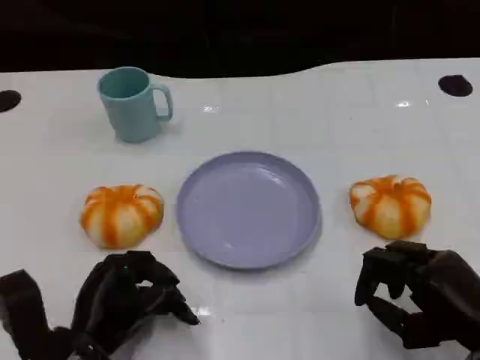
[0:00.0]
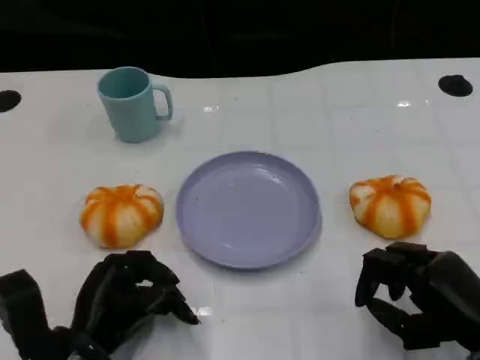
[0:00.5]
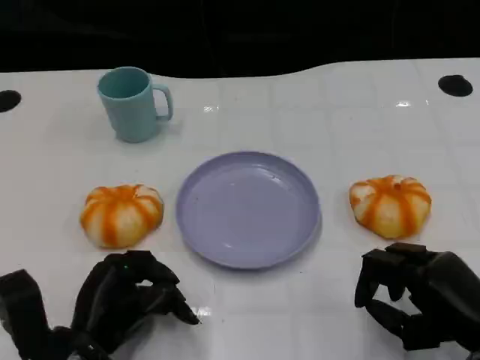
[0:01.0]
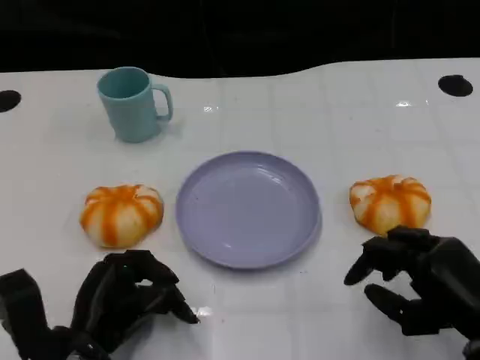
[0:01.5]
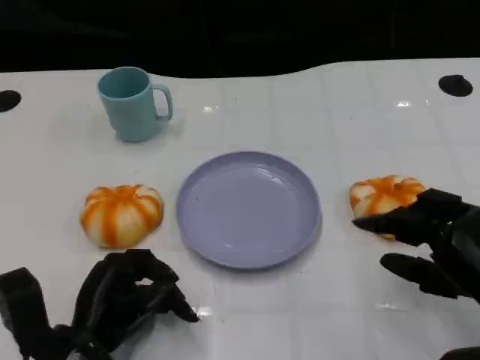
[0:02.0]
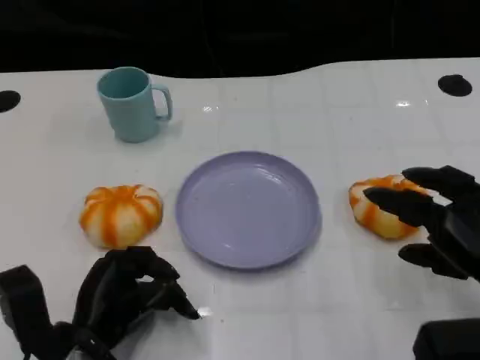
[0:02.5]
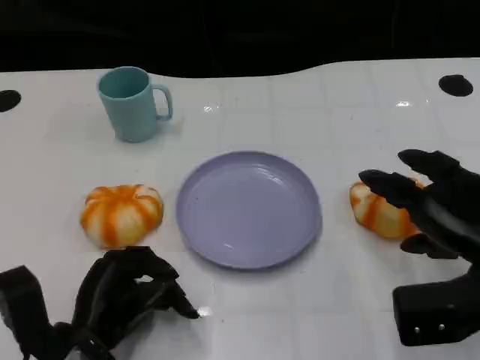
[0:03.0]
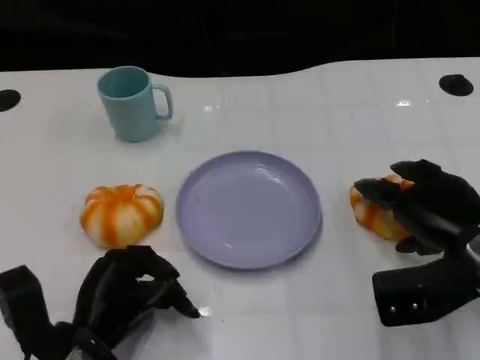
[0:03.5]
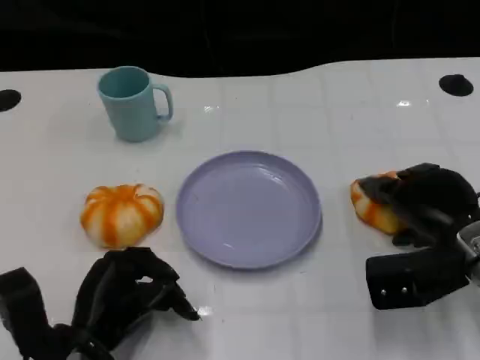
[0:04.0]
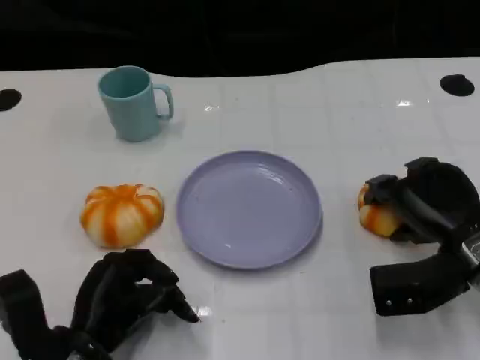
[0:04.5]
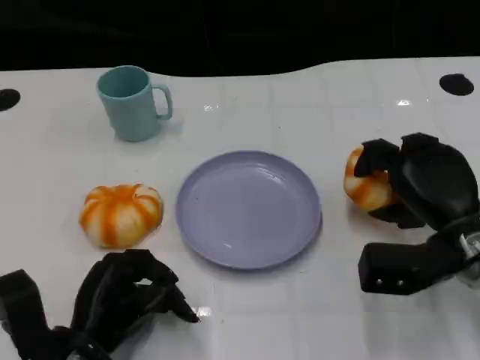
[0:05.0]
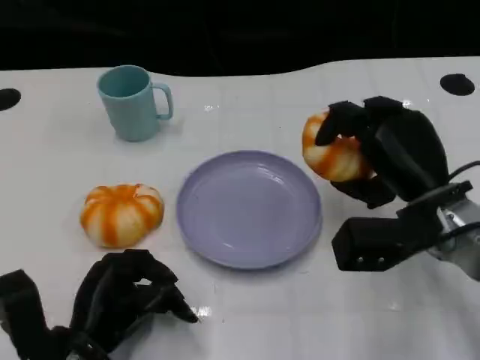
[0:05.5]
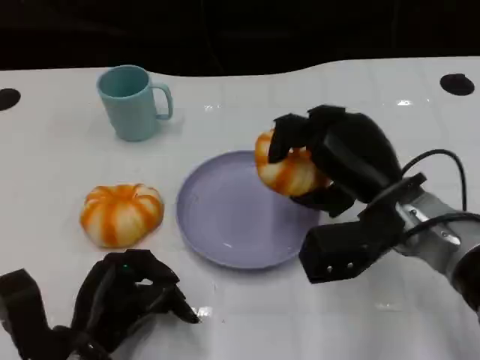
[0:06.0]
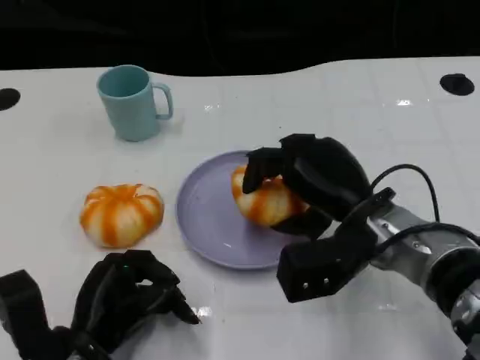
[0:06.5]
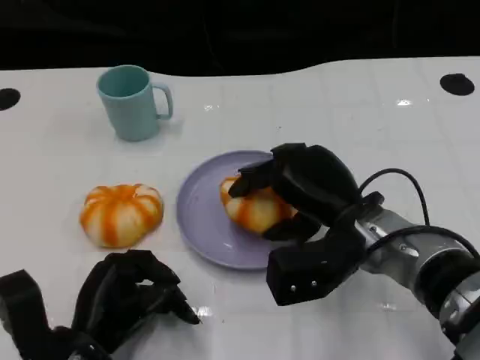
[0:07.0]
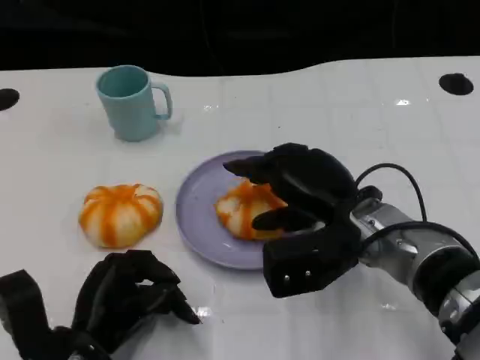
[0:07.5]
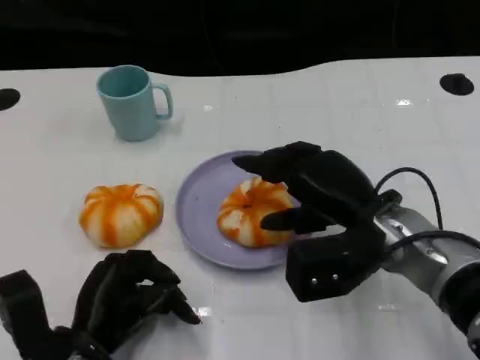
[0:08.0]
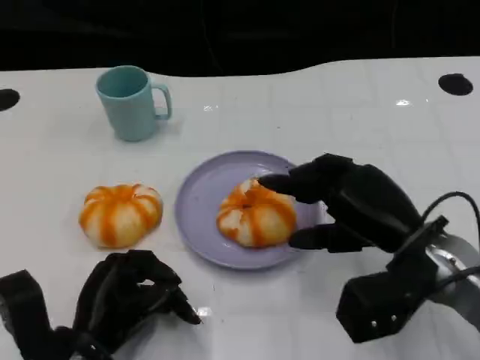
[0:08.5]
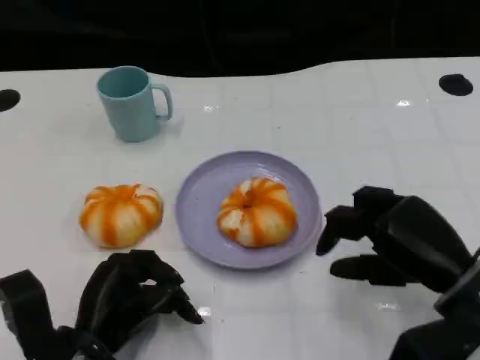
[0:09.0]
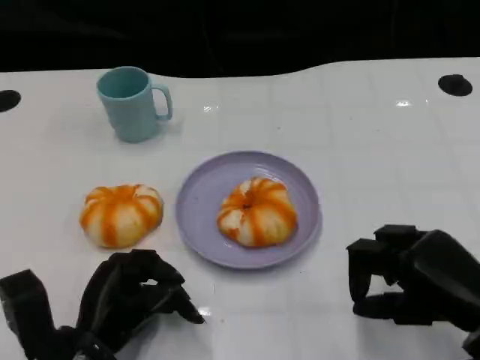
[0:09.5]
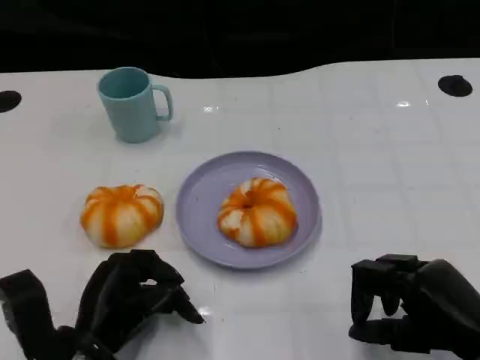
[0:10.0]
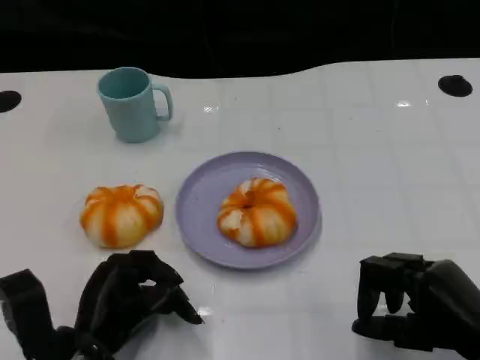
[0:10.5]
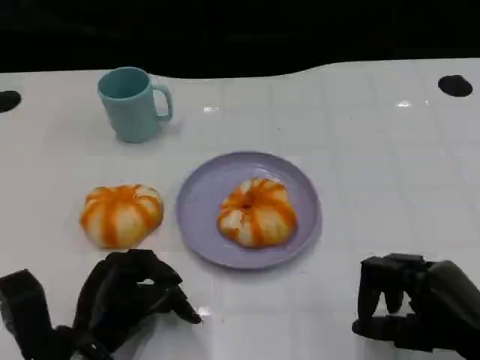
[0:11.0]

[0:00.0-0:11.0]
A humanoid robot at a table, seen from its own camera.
Task of the whole recording: Grasp the bread from the table and place it into the plate.
0:00.0 to 0:02.0: The hands make only small movements.
0:02.0 to 0:03.5: The right hand goes some 5 cm forward.
0:03.5 to 0:05.5: The right hand travels to the left by roughly 5 cm.
0:05.5 to 0:07.5: The right hand moves to the left, some 5 cm.
0:07.5 to 0:09.0: The right hand goes some 15 cm to the right and backward.
0:09.0 to 0:11.0: The right hand shifts approximately 5 cm backward.

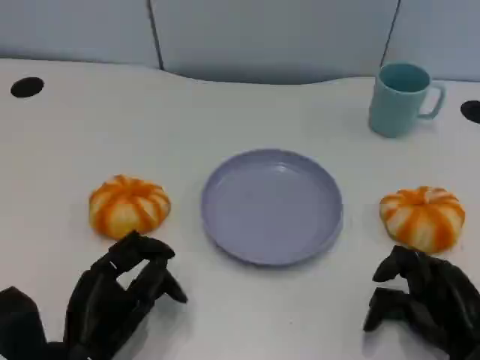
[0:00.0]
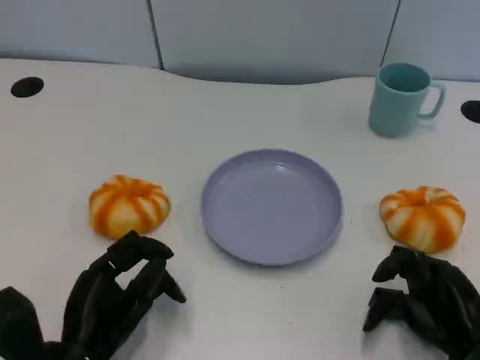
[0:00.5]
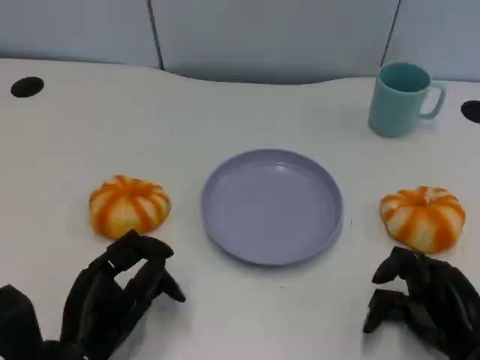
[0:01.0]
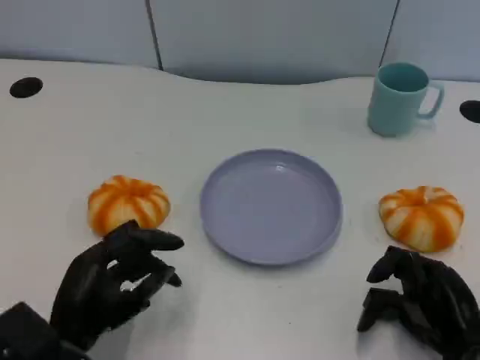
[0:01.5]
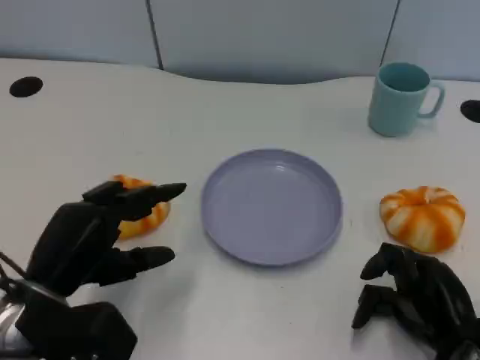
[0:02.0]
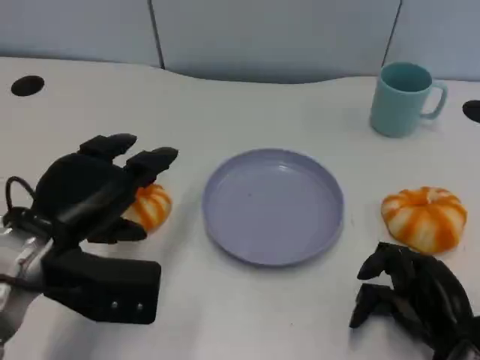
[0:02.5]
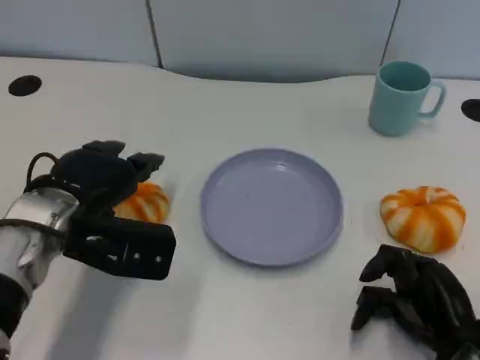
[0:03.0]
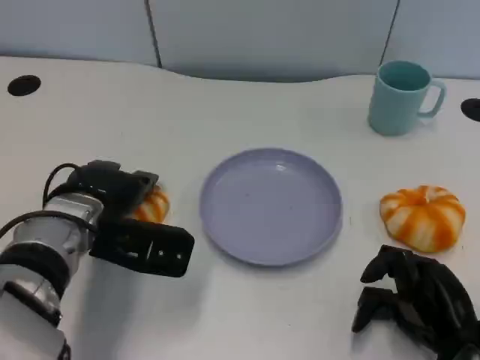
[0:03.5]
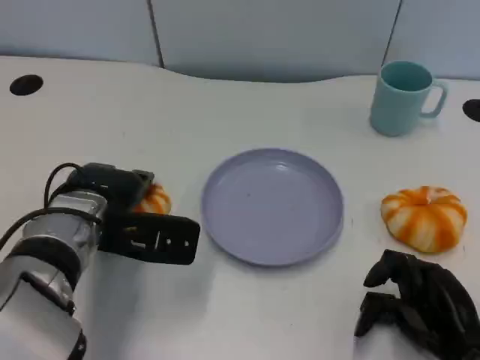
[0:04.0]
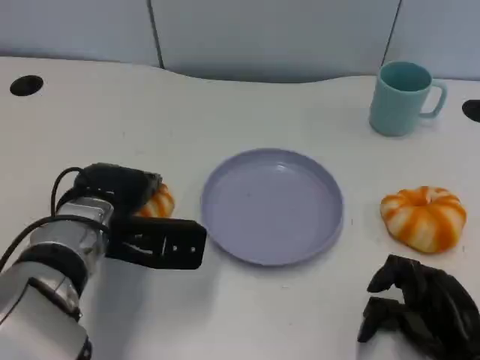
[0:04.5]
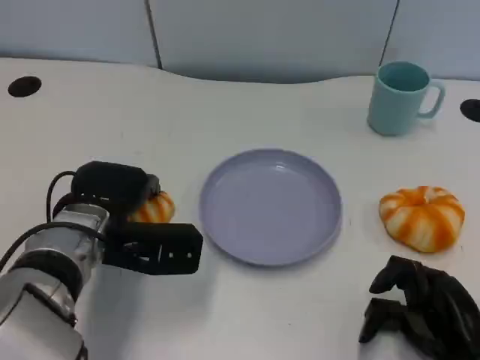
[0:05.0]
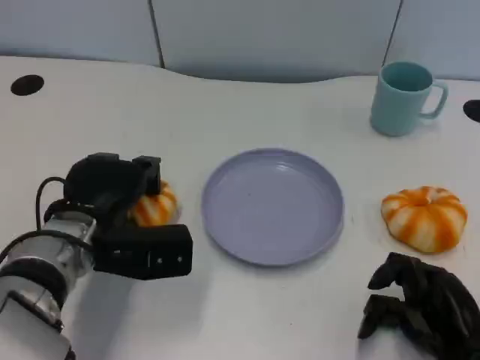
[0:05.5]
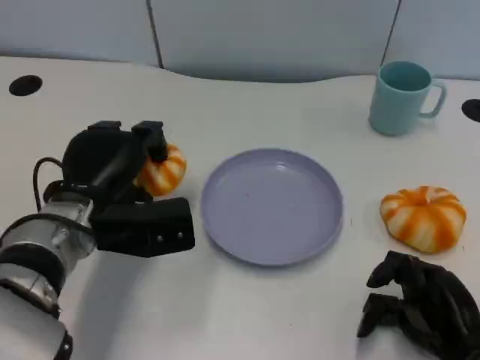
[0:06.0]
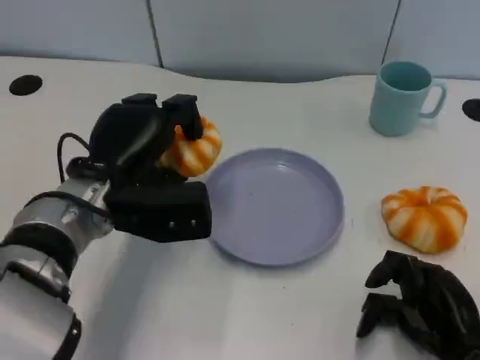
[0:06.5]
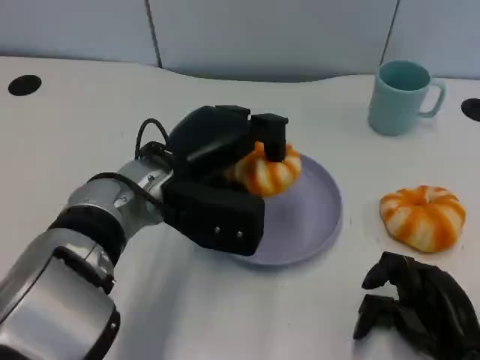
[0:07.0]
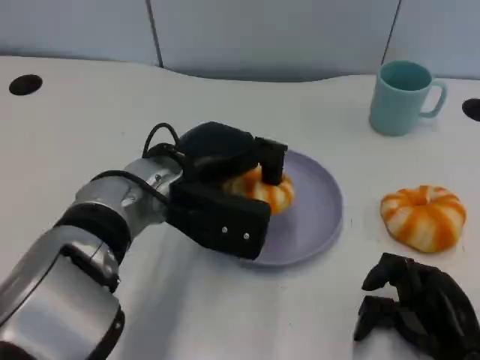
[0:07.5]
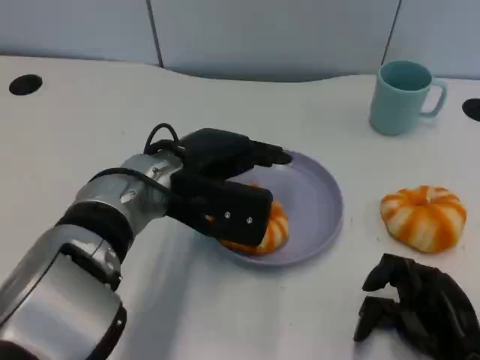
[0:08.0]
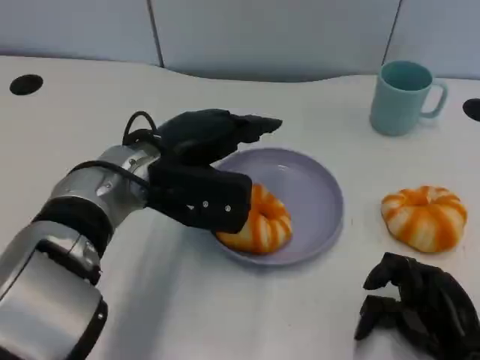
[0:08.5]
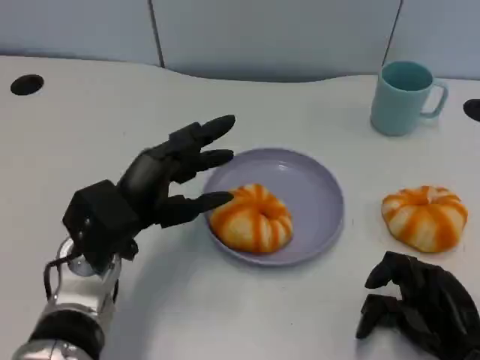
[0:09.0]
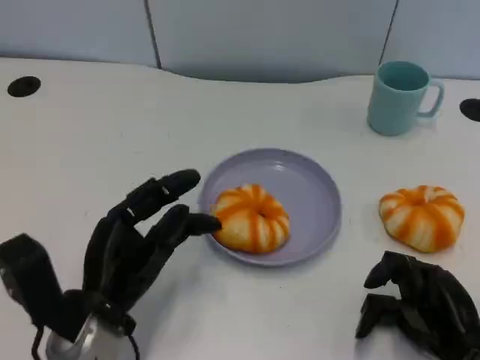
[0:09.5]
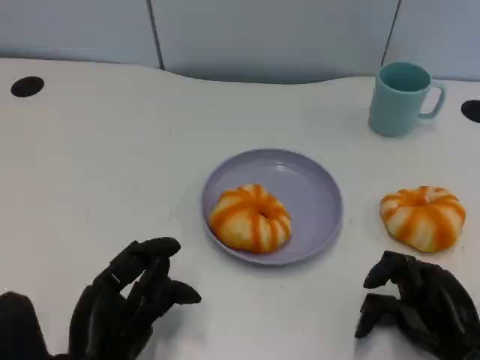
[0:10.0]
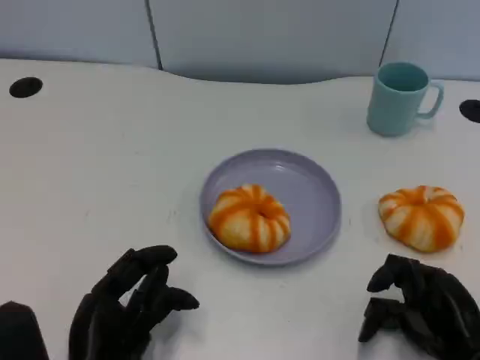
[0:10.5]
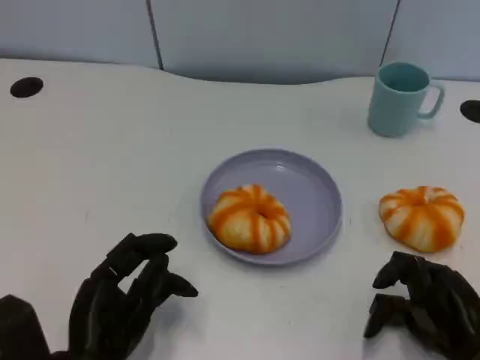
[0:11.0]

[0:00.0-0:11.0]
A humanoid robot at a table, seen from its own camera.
Task of the whole recording: Grasp the bread from the table and place it into the plate.
0:00.0 to 0:02.0: The left hand goes some 10 cm upward.
0:02.0 to 0:03.5: The left hand shifts some 10 cm forward.
0:05.5 to 0:07.5: The left hand moves to the right and upward, roughly 10 cm.
0:07.5 to 0:09.0: The left hand goes approximately 10 cm to the left and downward.
0:09.0 to 0:11.0: The left hand heads backward, covering about 10 cm.

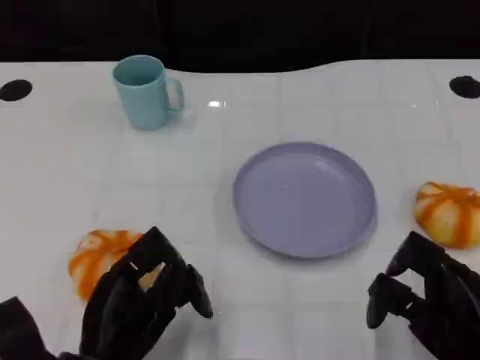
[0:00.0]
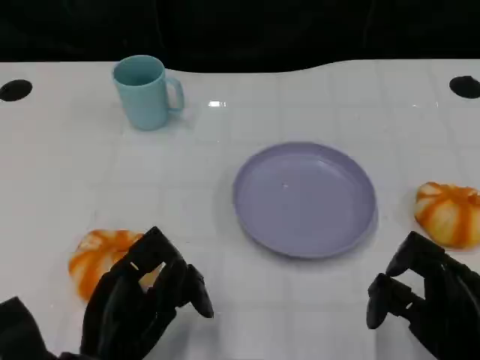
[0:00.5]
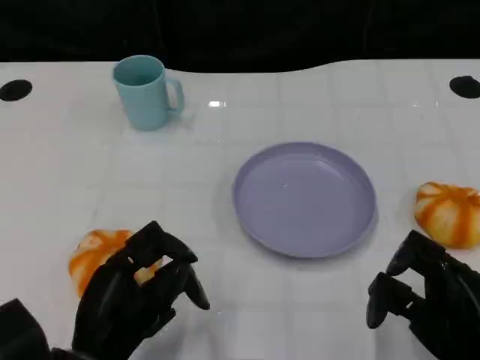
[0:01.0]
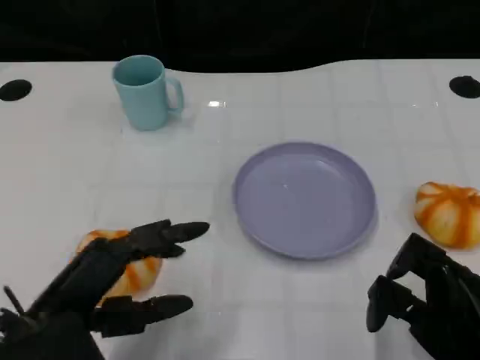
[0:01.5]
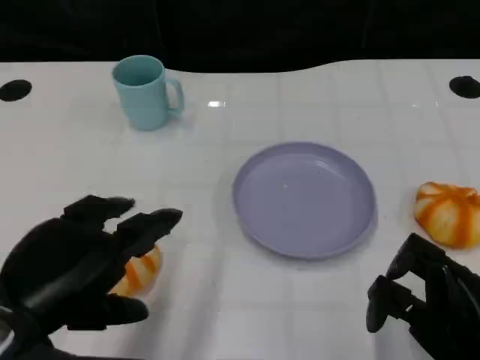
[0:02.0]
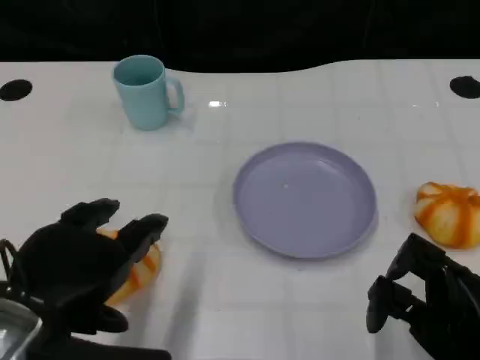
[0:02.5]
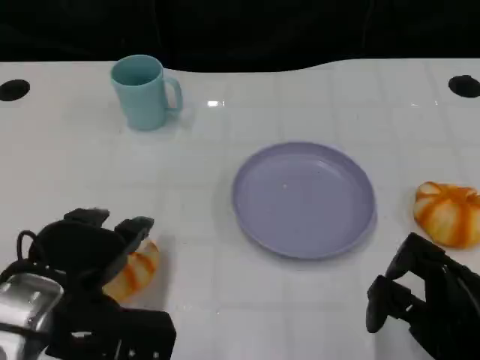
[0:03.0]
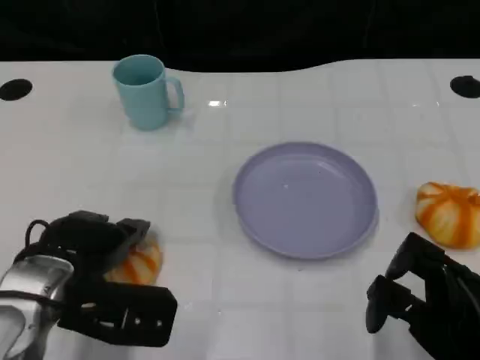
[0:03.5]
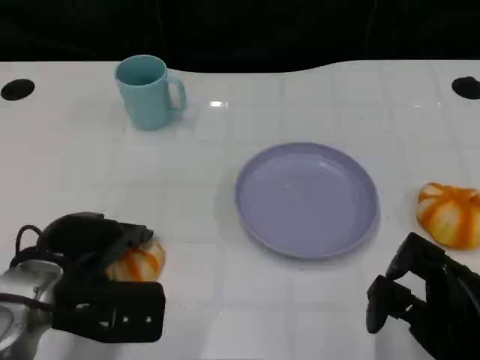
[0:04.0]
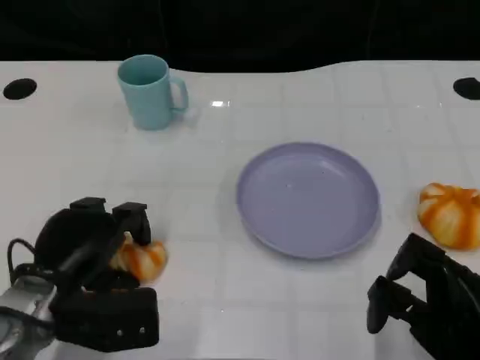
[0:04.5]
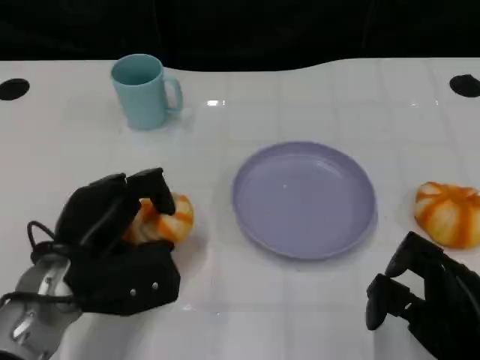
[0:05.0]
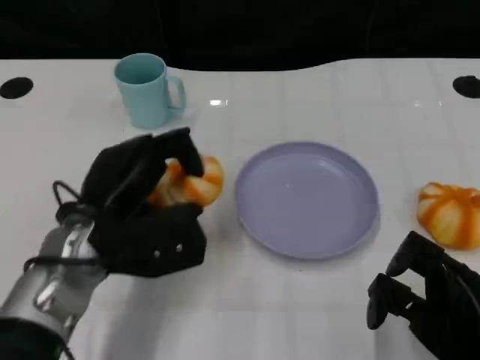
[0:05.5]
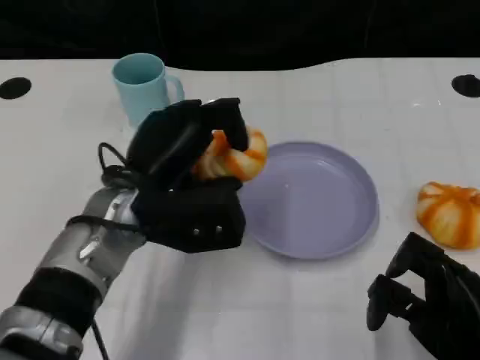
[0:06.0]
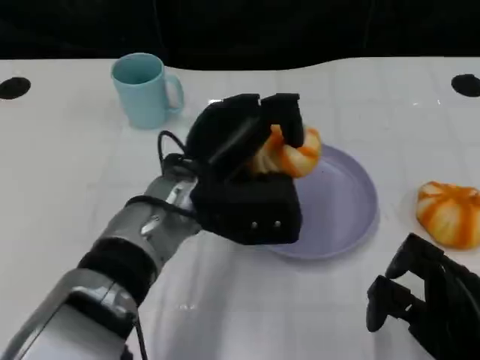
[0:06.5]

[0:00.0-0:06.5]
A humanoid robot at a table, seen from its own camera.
Task of the whole recording: Grasp the bread from the table and place it into the plate.
0:00.0 to 0:02.0: The left hand travels upward by about 10 cm.
0:02.0 to 0:04.5: The left hand goes roughly 15 cm downward and forward.
0:04.5 to 0:06.5: The left hand travels to the right, upward and forward by some 20 cm.
